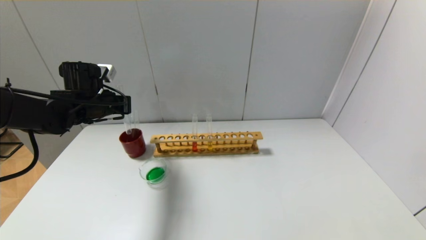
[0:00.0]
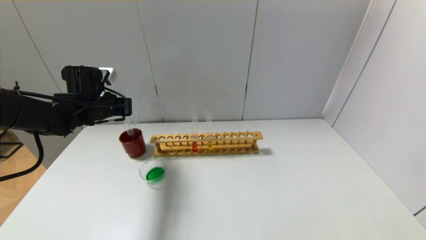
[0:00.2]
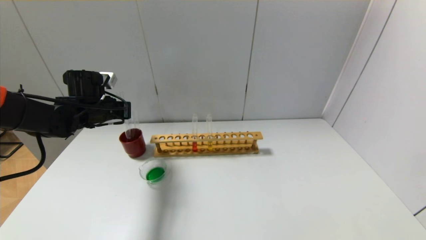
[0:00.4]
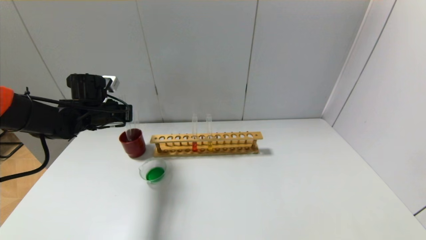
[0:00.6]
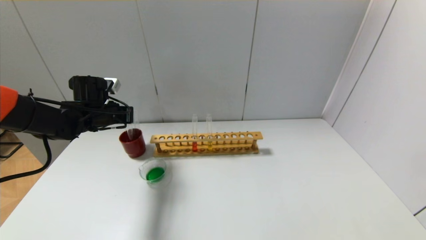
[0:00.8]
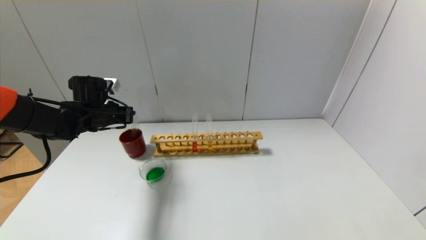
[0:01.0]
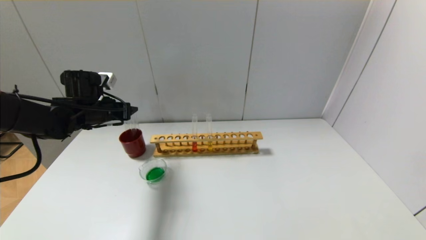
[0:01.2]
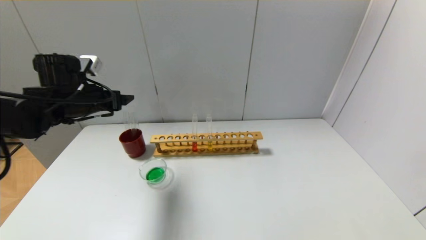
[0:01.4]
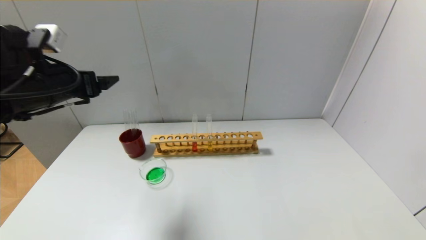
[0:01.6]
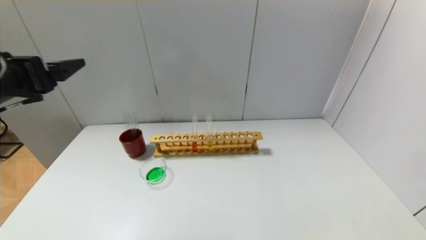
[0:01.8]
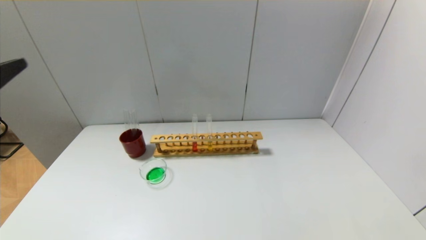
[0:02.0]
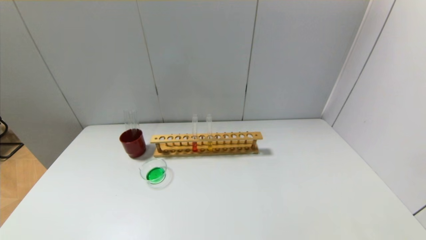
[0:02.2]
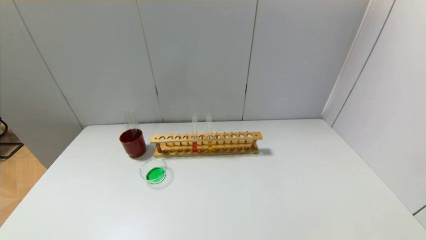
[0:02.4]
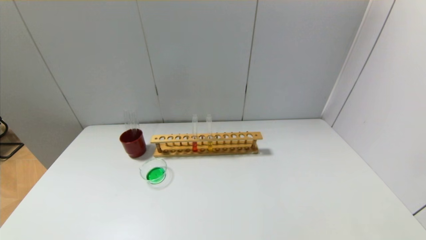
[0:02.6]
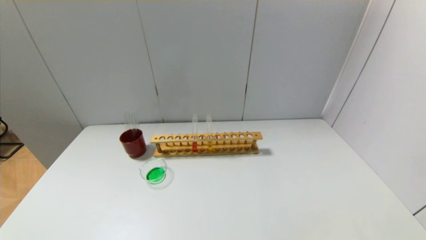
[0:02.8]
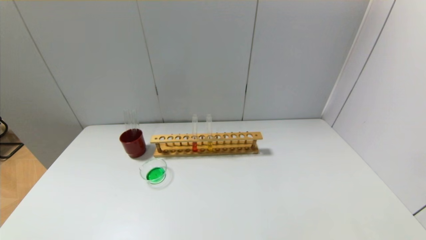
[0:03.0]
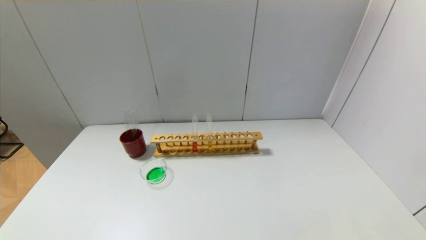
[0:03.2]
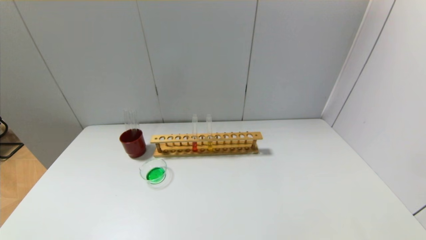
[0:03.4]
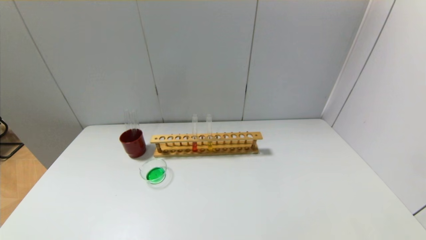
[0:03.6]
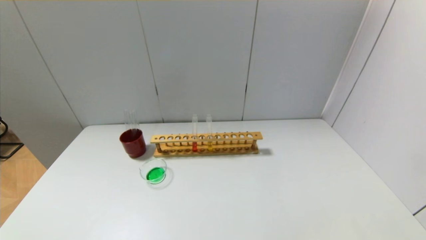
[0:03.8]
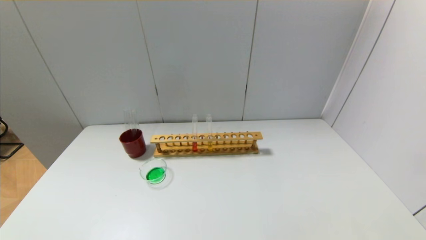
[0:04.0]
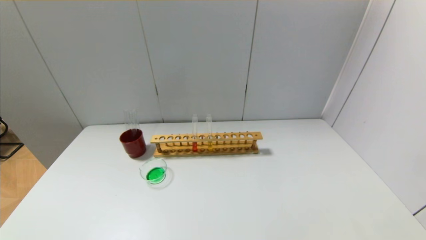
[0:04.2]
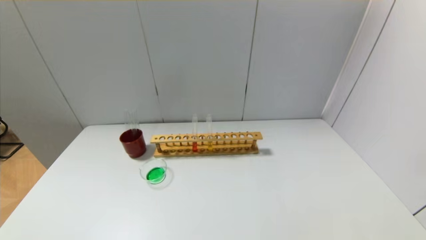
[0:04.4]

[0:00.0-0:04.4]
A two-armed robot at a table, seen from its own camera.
0:00.0 to 0:01.4: The left gripper opens its fingers.
0:01.4 to 0:03.0: The left gripper heads backward, covering about 35 cm.
